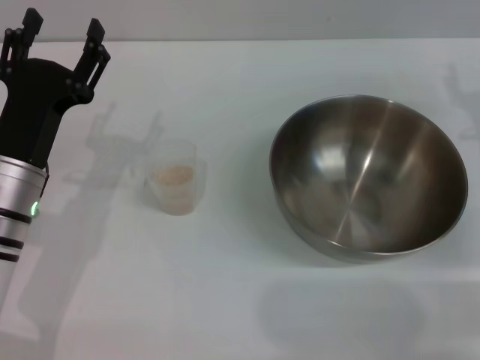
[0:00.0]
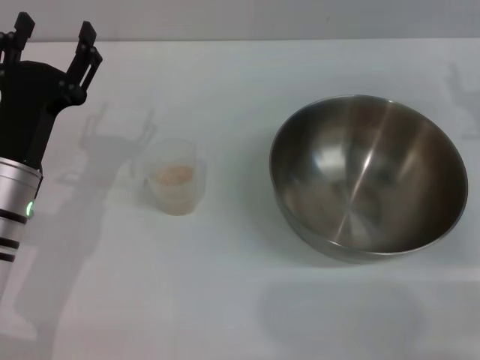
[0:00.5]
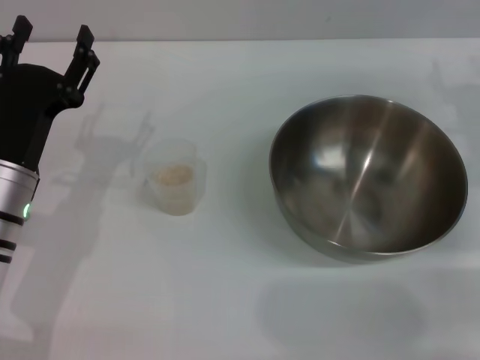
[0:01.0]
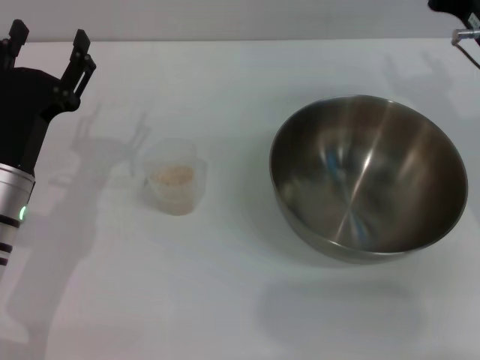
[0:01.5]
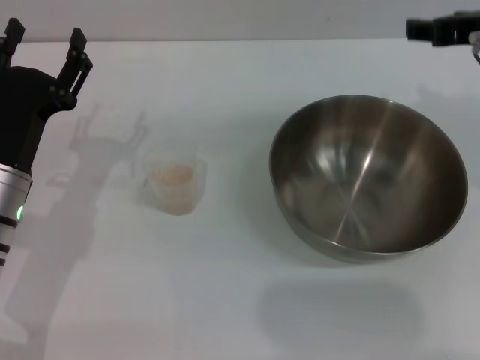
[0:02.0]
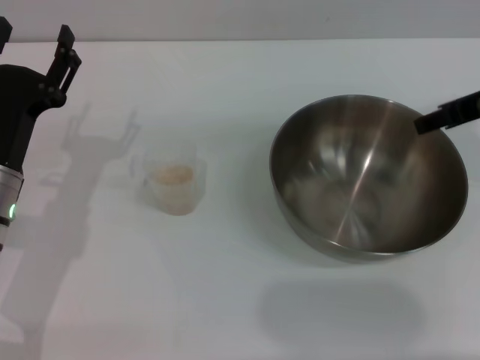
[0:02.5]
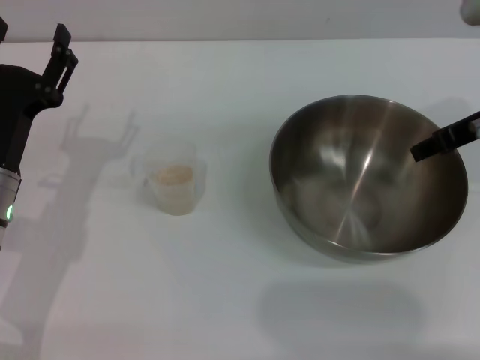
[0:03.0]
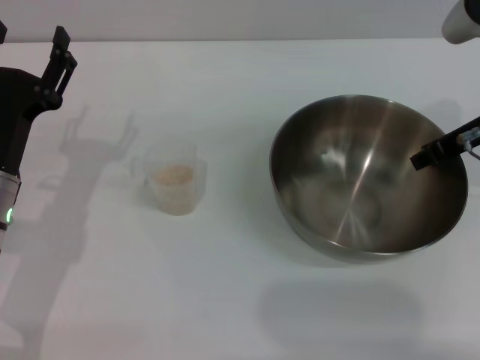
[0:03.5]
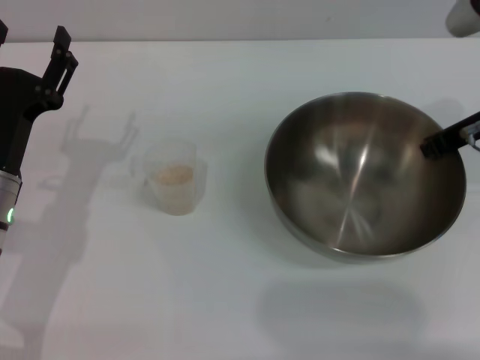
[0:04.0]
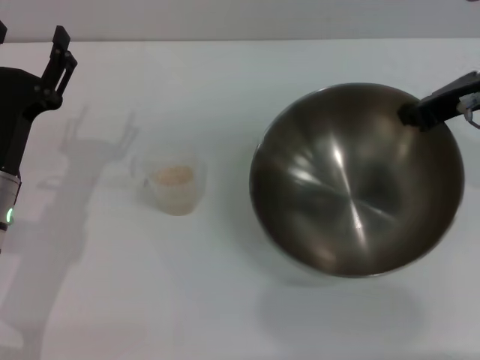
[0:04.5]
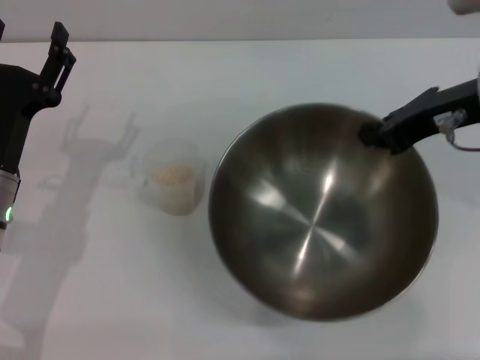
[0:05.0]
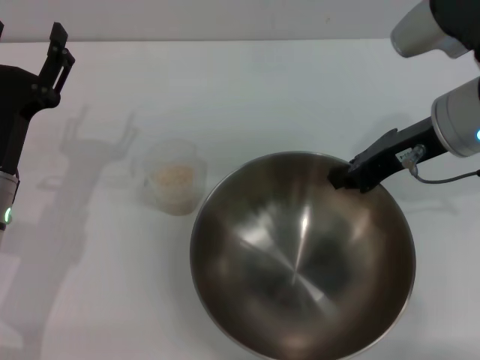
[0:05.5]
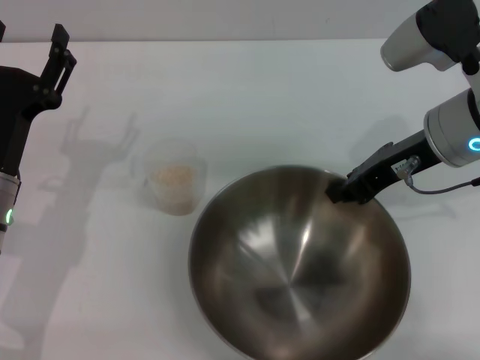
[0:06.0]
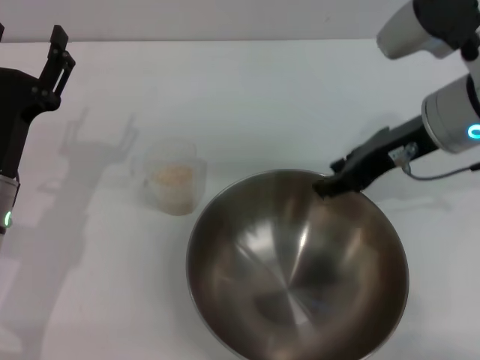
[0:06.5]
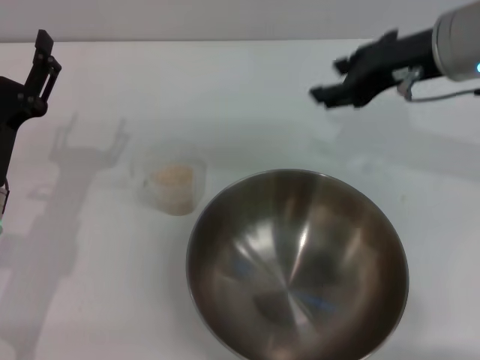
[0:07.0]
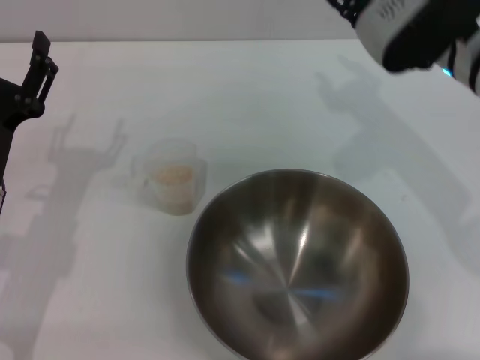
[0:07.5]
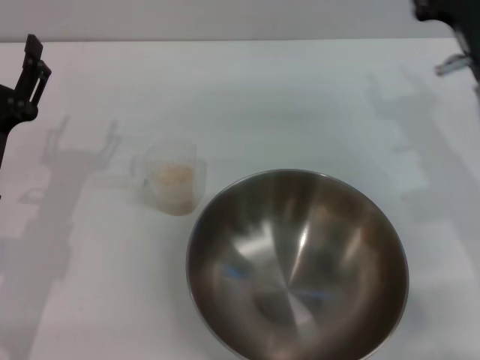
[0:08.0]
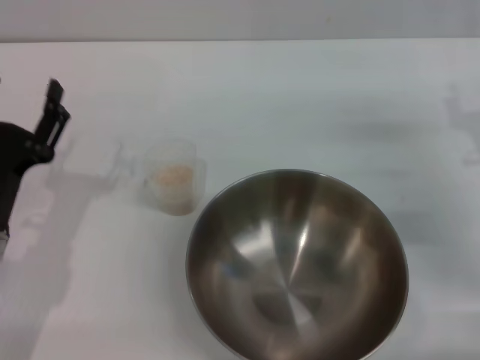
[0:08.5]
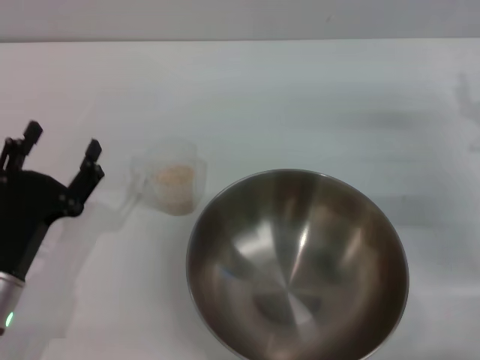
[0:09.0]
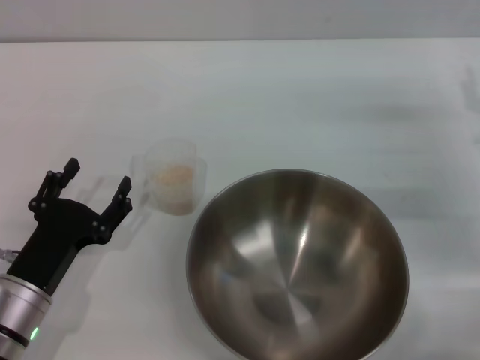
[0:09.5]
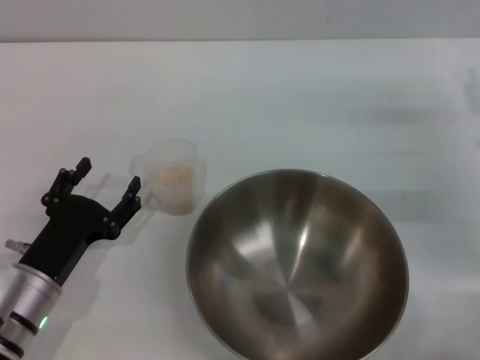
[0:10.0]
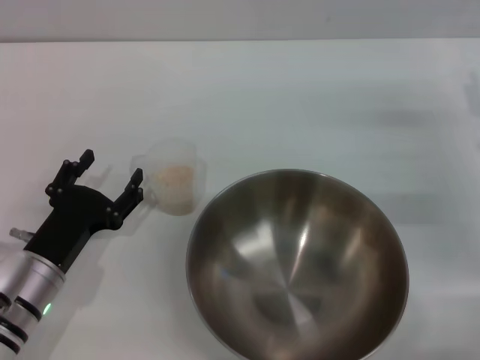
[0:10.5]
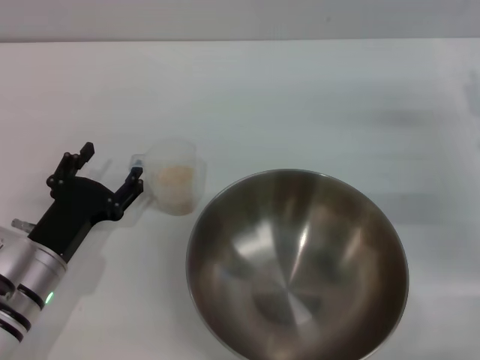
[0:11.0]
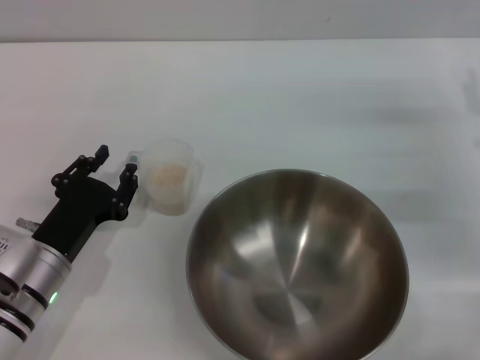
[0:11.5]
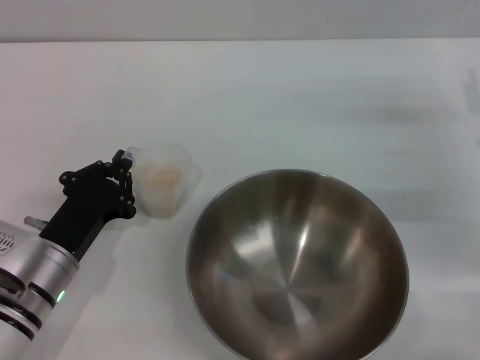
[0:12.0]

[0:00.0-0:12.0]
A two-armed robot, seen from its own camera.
Task of the whole recording: Place the bowl in the middle of the table with one hand and pour the rice from the grain cup into it with the other hand.
Step, 0:00.0 to 0:04.5: Pick up the bowl with the right gripper.
Step, 0:05.0 to 0:07.0: Place the bowl in the center of view with the right gripper.
0:00.0 to 0:02.0: The right gripper is displaced upward and to the left by roughly 15 cm.
0:02.0 to 0:04.0: The right gripper shifts approximately 5 cm downward, and closes up.
0:04.0 to 0:06.0: The right gripper travels to the left by about 5 cm.
0:06.0 to 0:08.0: The right gripper shifts by approximately 5 cm, and opens.
0:08.0 to 0:10.0: The left gripper is displaced downward by about 5 cm, while the right gripper shifts about 10 cm to the right.
0:10.0 to 0:12.0: The left gripper closes.

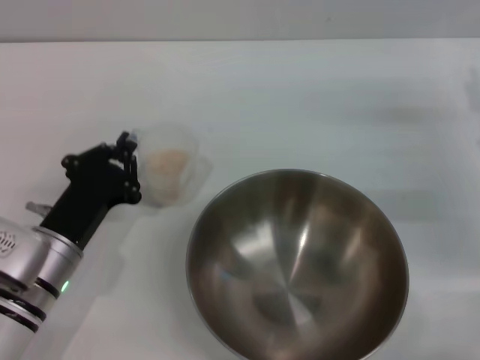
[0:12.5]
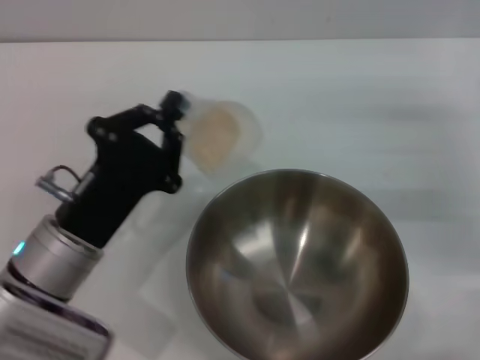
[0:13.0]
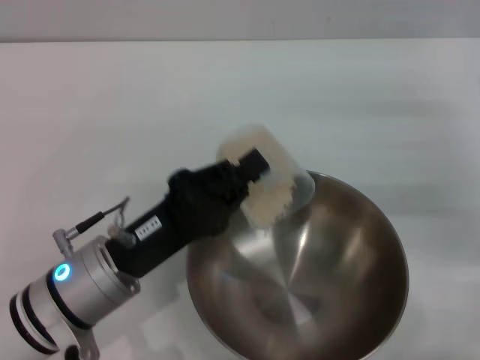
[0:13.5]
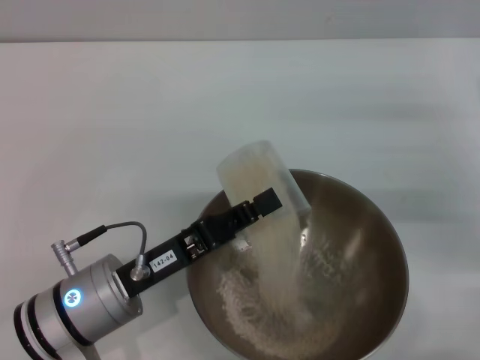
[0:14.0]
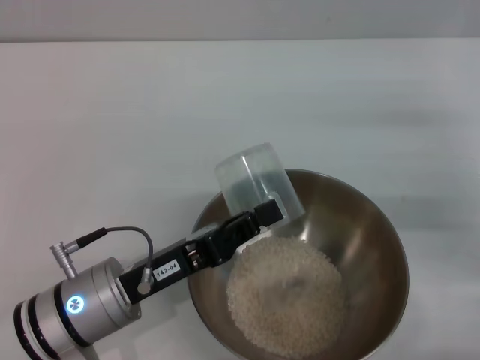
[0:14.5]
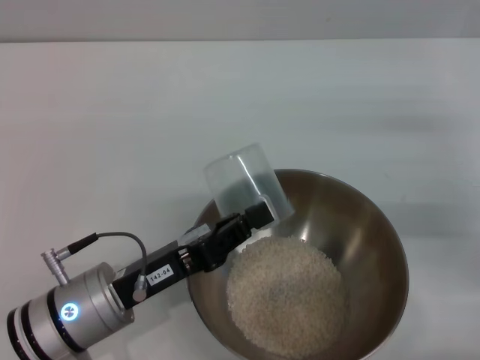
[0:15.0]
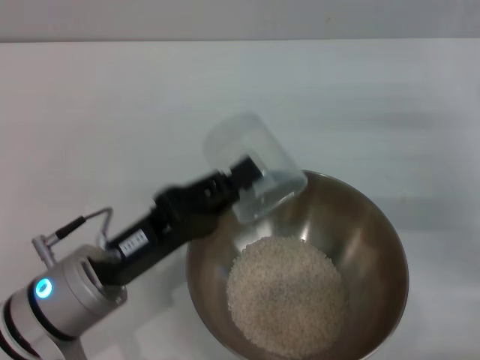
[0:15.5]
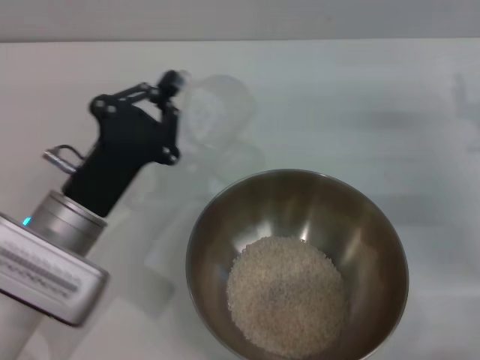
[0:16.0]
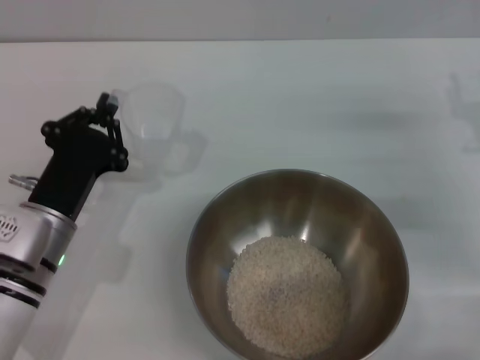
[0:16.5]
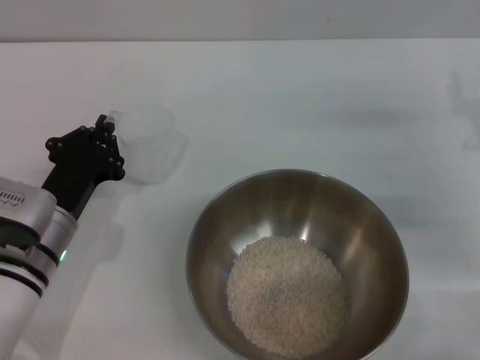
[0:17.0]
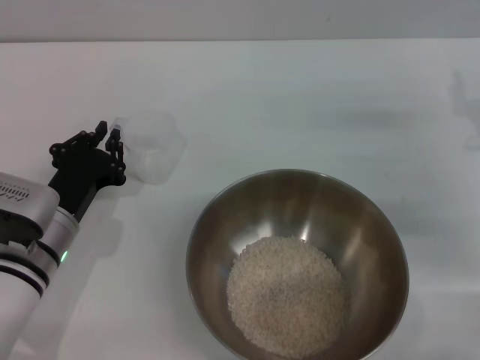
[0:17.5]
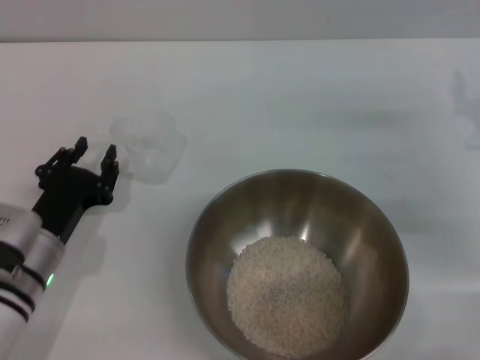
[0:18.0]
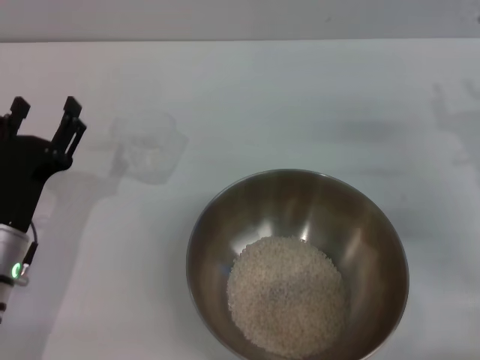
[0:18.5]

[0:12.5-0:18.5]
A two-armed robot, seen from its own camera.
Task of the whole recording: Place the bowl in the middle of the table with one hand and pour the rice from the grain cup into it with the other hand.
Step, 0:13.0 to 0:15.5: Pour the rice from the cup into the bowl with the left gripper.
Step, 0:16.0 to 0:18.0: Place the cup on the table with the left gripper.
0:12.5 to 0:14.5: The left gripper moves some 5 cm.
0:14.5 to 0:16.5: The left gripper changes place by roughly 5 cm.
0:16.5 to 0:18.5: The left gripper opens its fingers.
